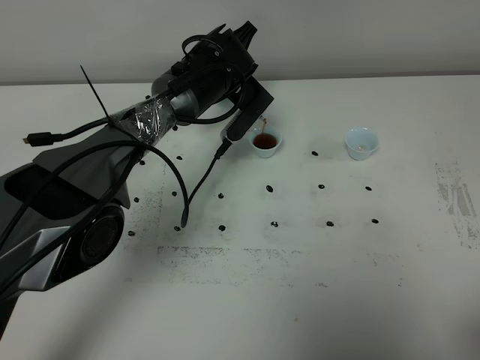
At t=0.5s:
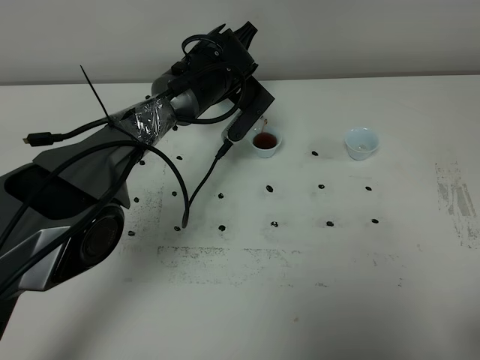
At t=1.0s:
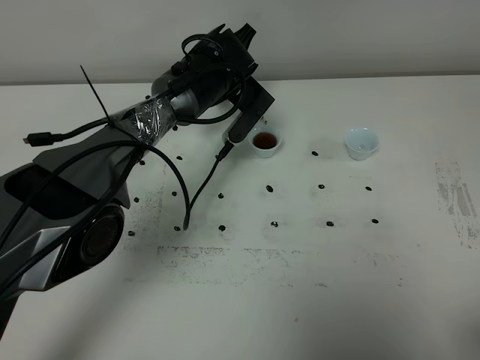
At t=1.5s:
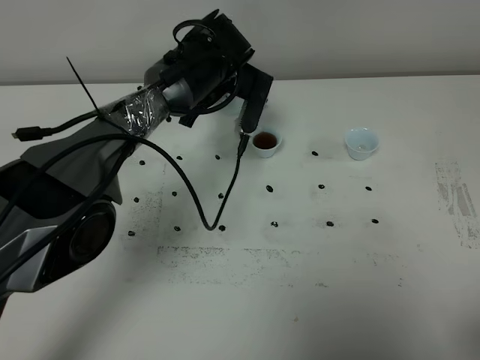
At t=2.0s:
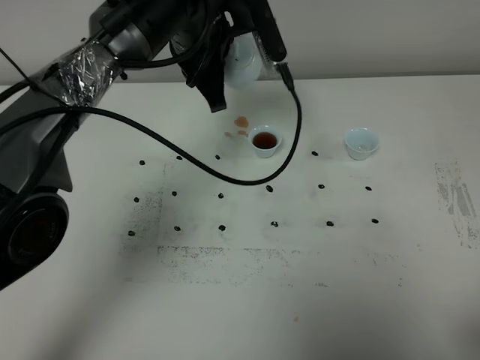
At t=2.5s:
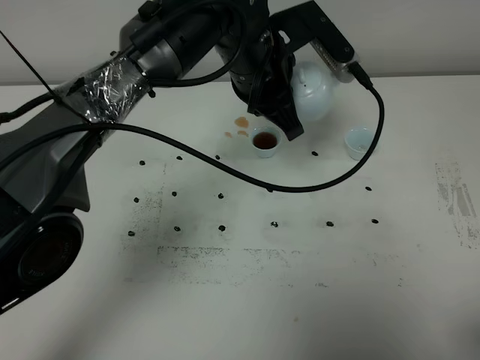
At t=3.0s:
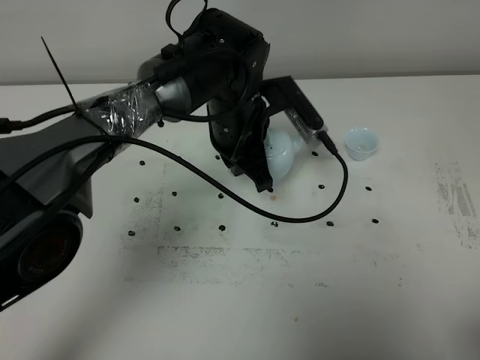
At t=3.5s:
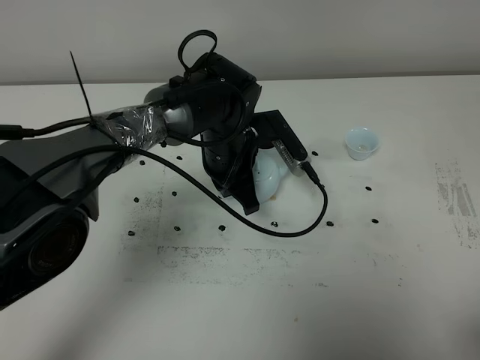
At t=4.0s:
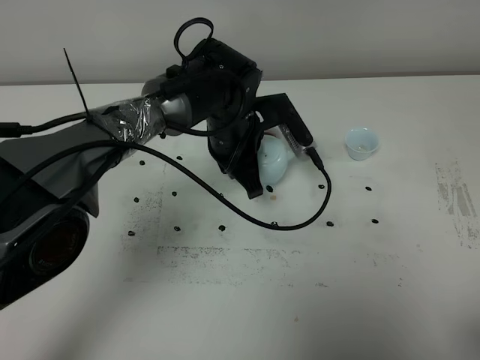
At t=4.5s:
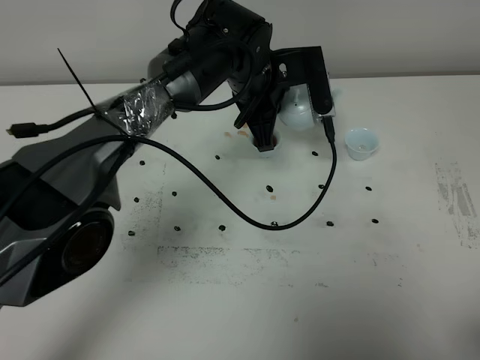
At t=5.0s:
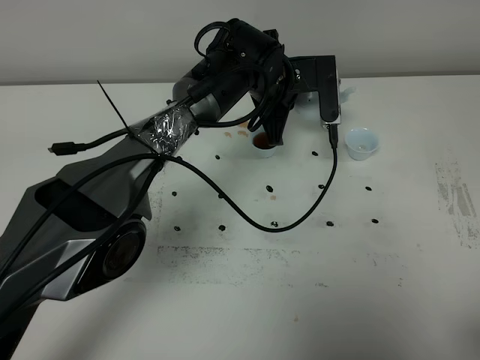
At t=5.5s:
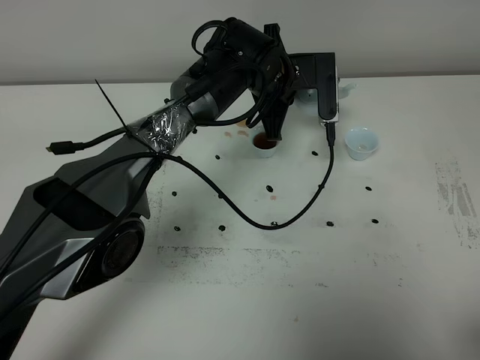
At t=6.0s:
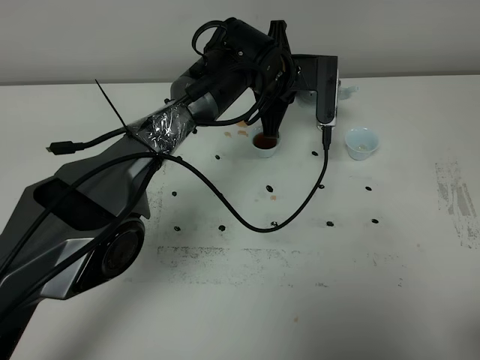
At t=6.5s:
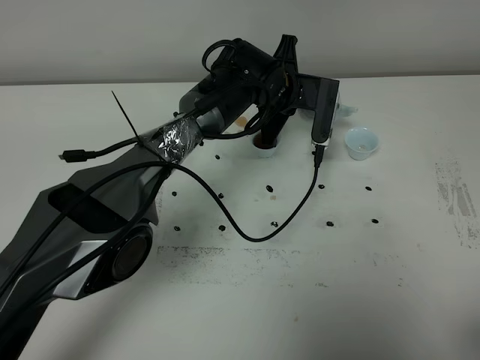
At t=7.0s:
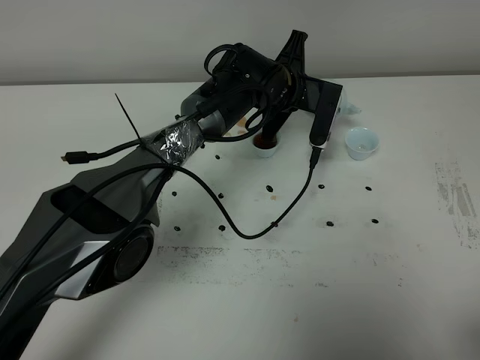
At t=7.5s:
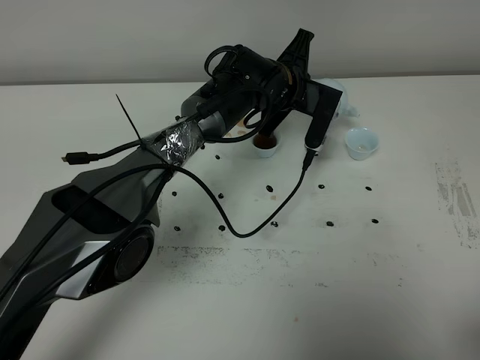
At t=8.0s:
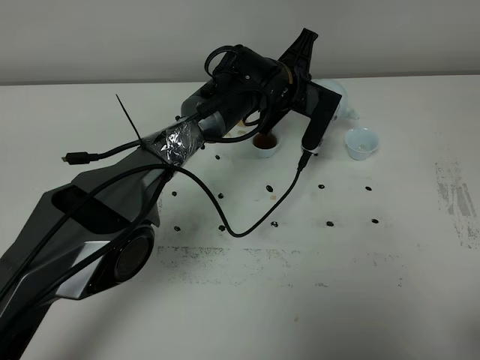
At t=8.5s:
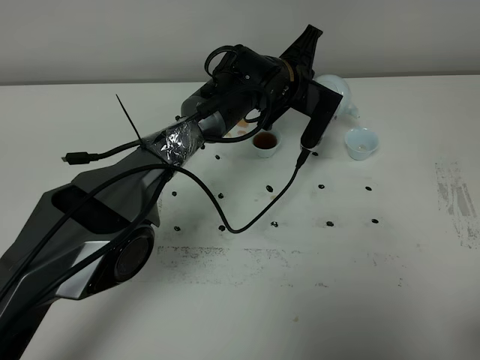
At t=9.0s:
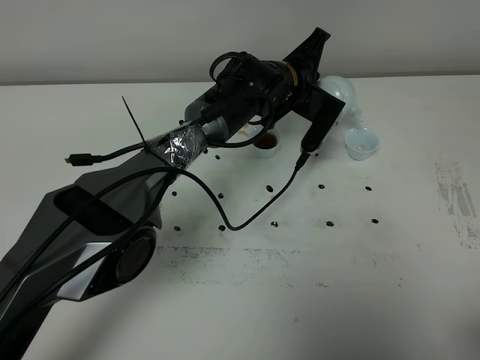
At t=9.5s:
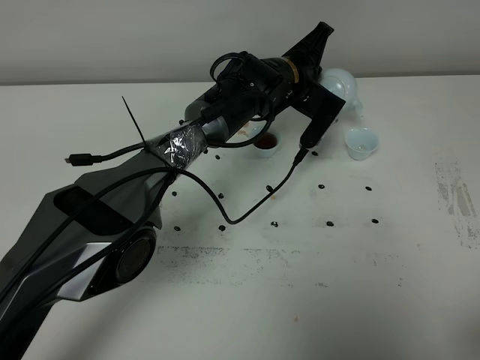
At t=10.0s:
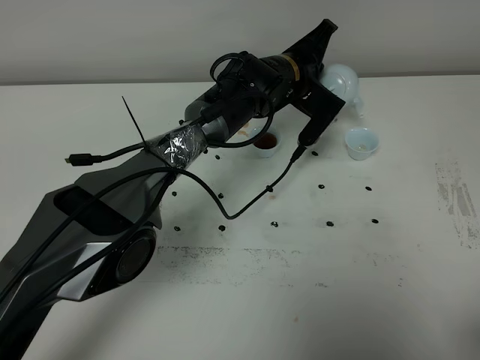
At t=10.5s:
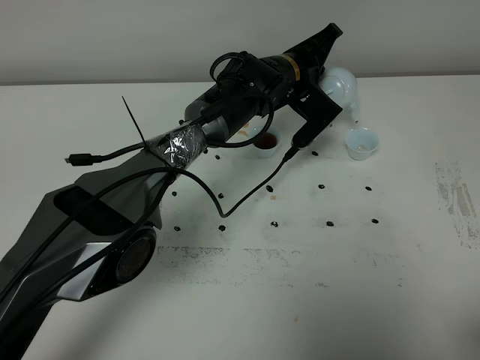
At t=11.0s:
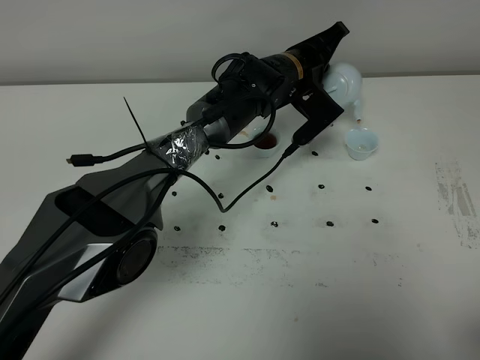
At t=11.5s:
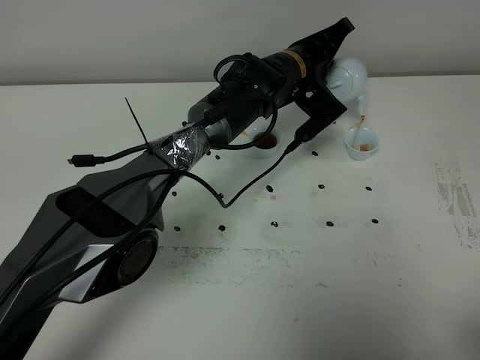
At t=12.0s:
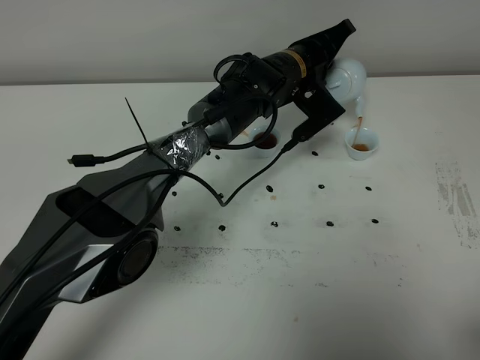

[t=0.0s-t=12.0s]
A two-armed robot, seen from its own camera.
Task of the whole recording: grasp the blue porcelain teapot and pour the tea into the two blue porcelain teacups one by one, put the blue porcelain teapot back in its original place.
t=0.0s to t=2.0s: The left gripper travels upward and backward by roughly 10 cm.
t=2.0s to t=4.0s: The left gripper moves downward, approximately 10 cm.
t=4.0s to t=6.0s: The left gripper travels forward by roughly 5 cm.
t=8.0s to t=10.0s: There are only small adjustments of the grippers.
t=10.0s to t=12.0s: The grippers make only small movements.

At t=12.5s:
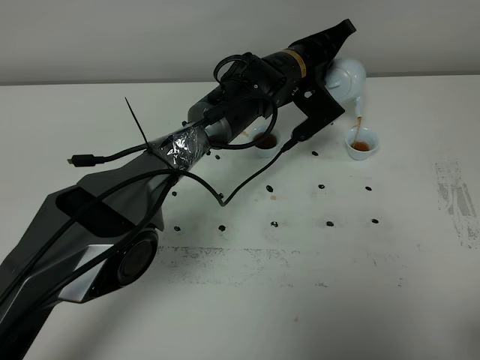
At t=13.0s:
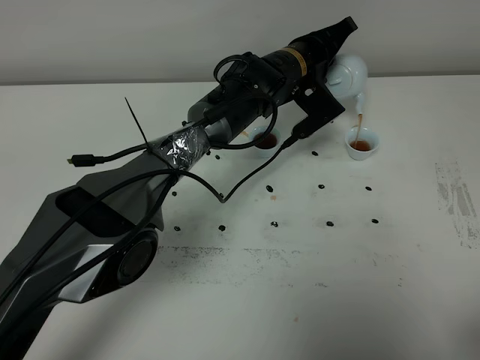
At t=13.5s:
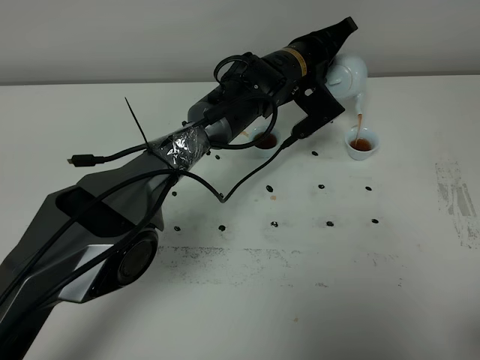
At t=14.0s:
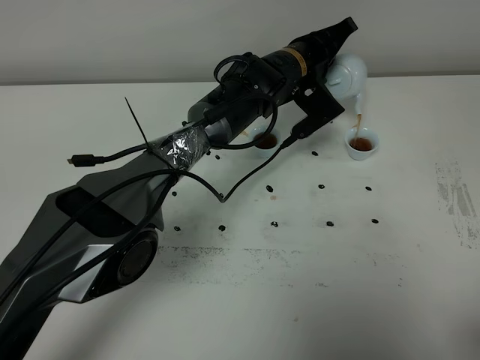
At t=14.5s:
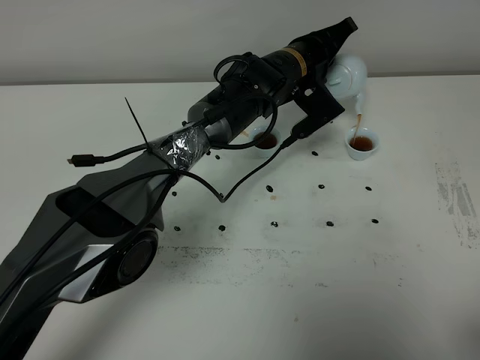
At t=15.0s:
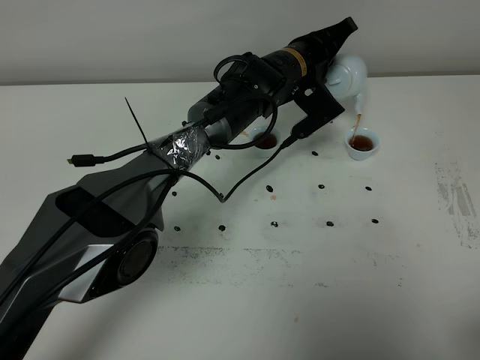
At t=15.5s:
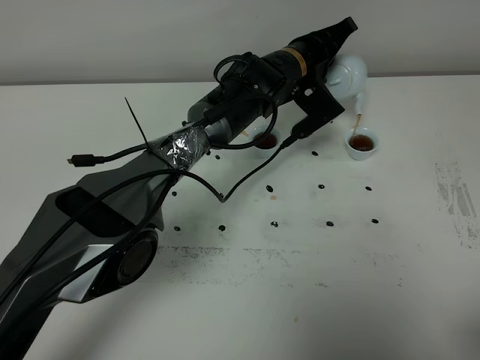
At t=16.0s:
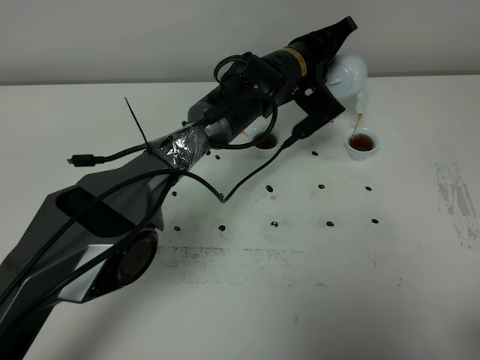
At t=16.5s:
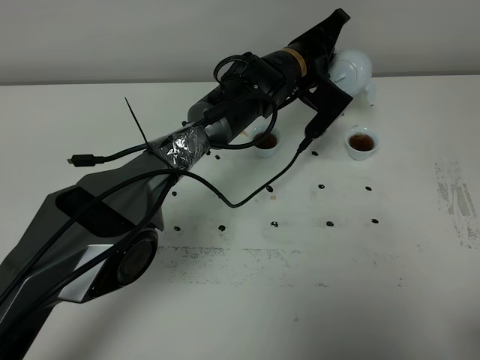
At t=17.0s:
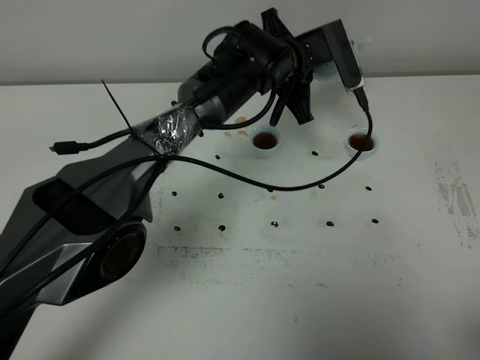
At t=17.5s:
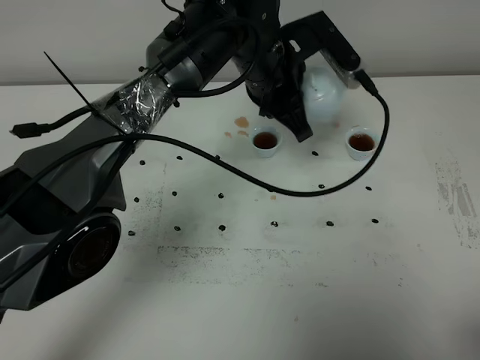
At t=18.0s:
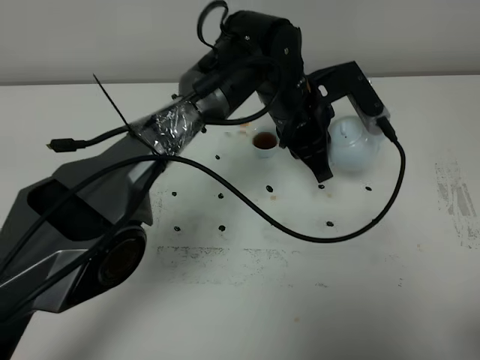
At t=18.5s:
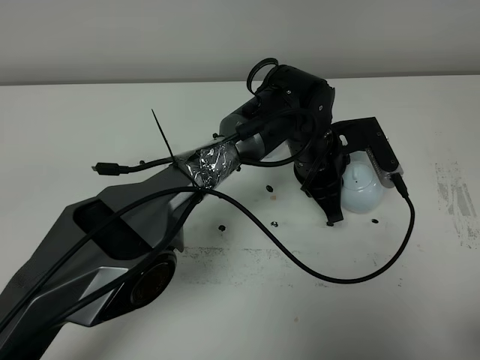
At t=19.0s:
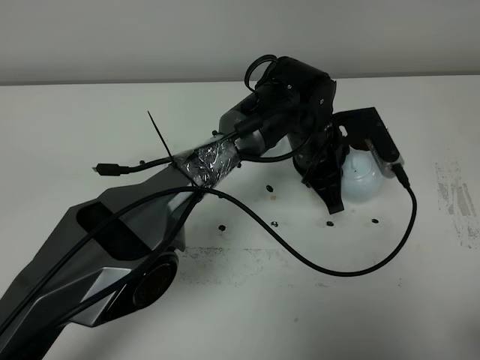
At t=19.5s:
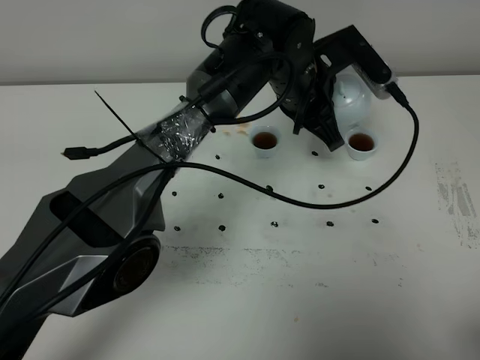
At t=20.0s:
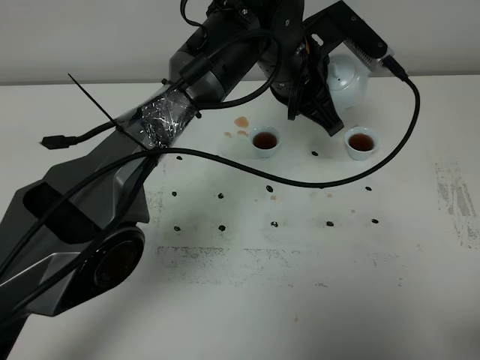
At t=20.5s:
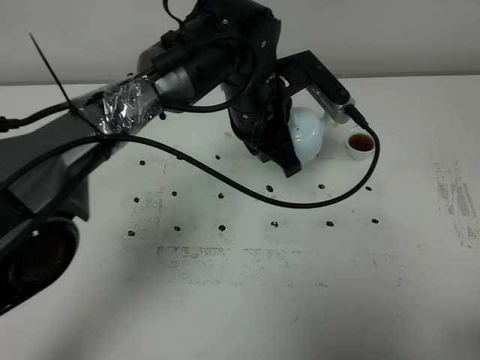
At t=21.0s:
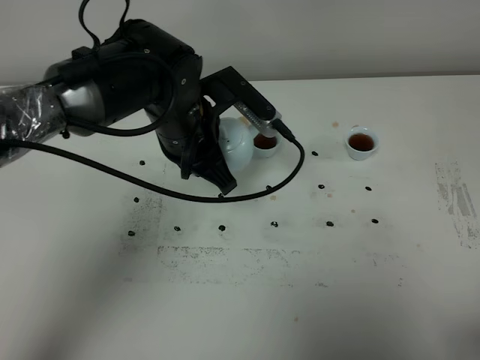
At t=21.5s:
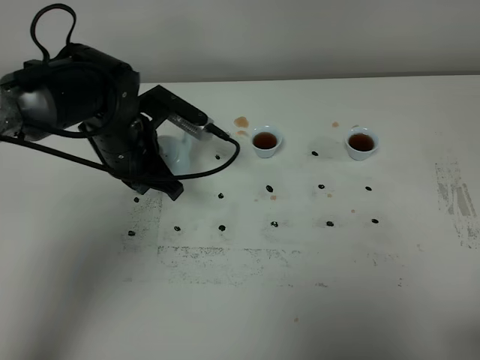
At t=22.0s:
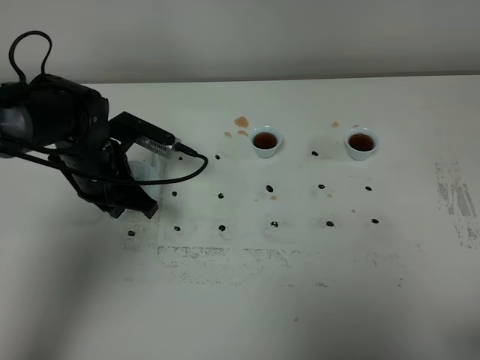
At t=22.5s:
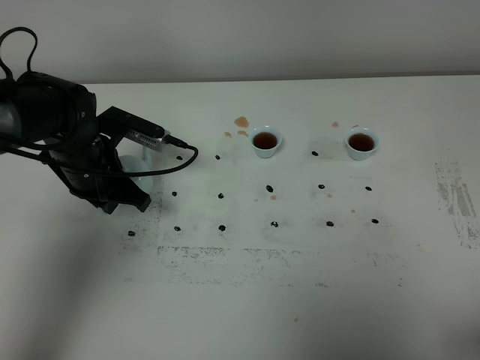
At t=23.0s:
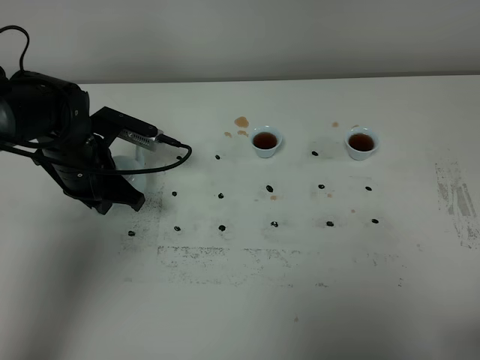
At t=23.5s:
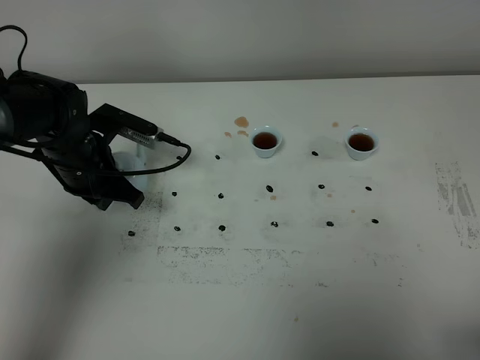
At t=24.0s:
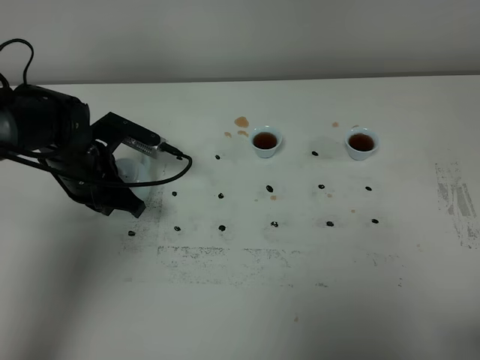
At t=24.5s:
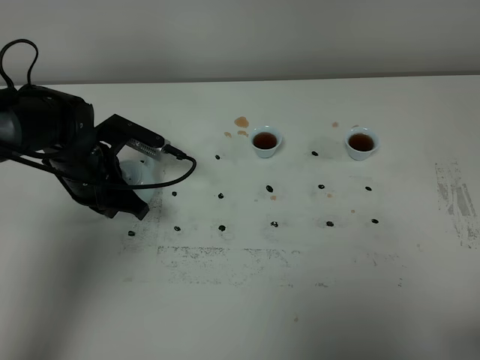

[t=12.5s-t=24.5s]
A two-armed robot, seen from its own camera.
Task of the whole recording: grasp the blue porcelain teapot and pour the tea into the two blue porcelain teacups one by one, put the blue porcelain teapot back in its original place.
Step, t=12.5s to t=16.5s: Pour tea into the teacup with the left gripper.
t=12.5s to t=14.5s: The two grippers keep their place.
t=14.5s to t=16.5s: The grippers move only a little.
t=16.5s to t=18.5s: The left gripper shifts roughly 10 cm backward.
t=18.5s to t=20.5s: The left gripper is displaced upward and to the left by some 15 cm.
t=20.5s to t=22.5s: The left gripper heads to the left, covering approximately 20 cm.
t=22.5s to t=24.5s: There are only small adjustments of the grippers.

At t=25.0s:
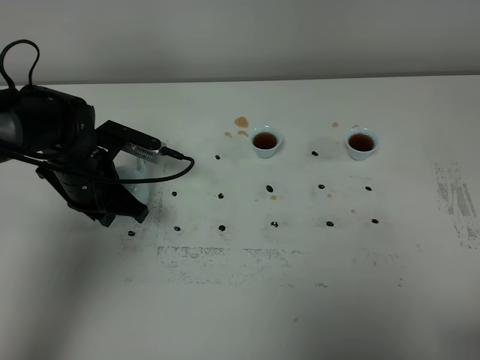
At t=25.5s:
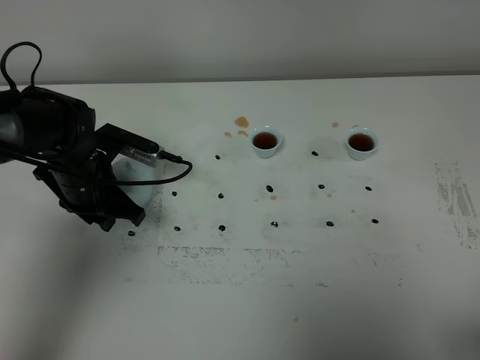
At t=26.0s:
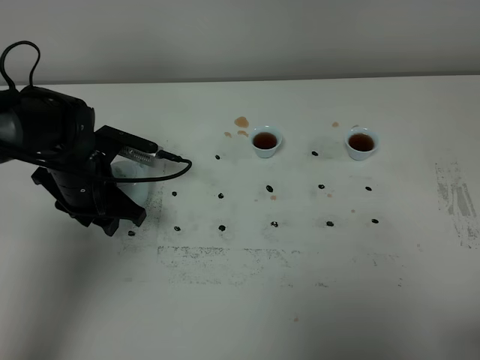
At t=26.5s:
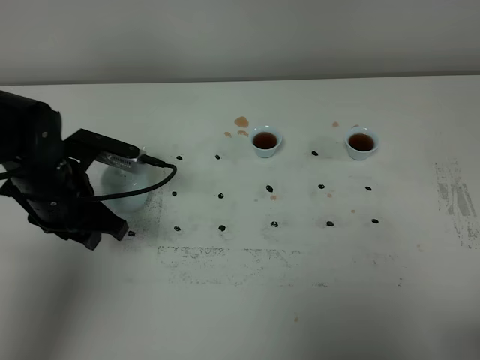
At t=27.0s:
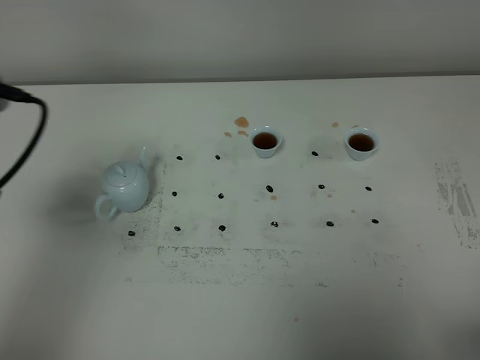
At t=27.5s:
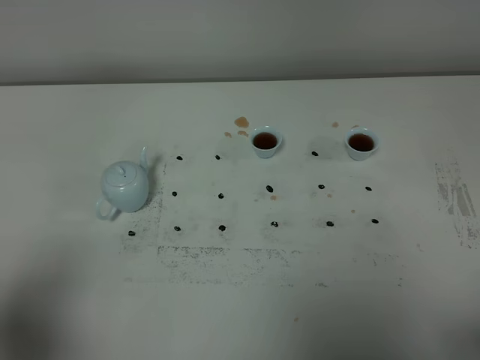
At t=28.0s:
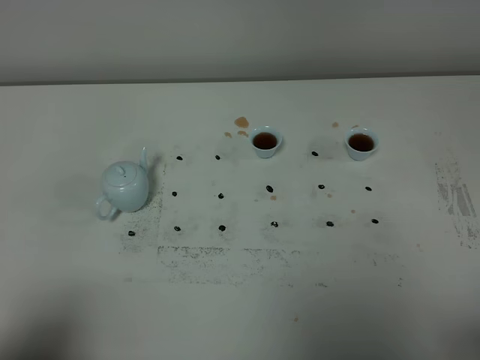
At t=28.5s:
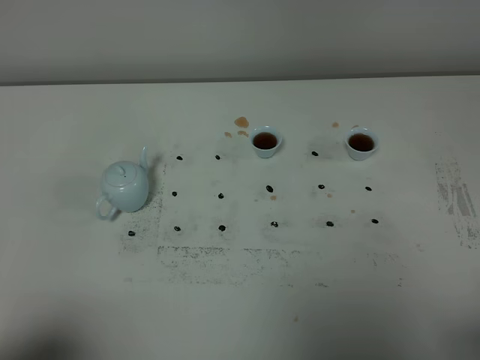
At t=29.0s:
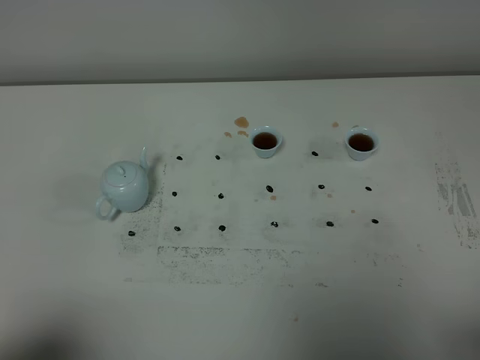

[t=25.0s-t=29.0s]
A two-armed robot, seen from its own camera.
Task of the whole recording: grasp the blue porcelain teapot and pour the tea into the two blue porcelain teacups one by one, put the blue porcelain teapot back in its original place.
t=25.0s to t=27.0s: The left gripper goes roughly 25 cm upward and backward, and opens up.
t=27.0s to t=29.0s: The left gripper is displaced backward and downward by approximately 20 cm.
